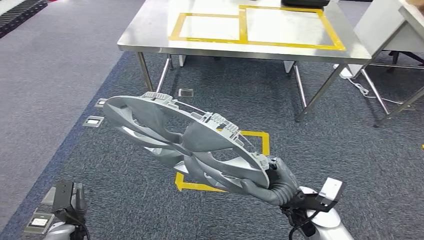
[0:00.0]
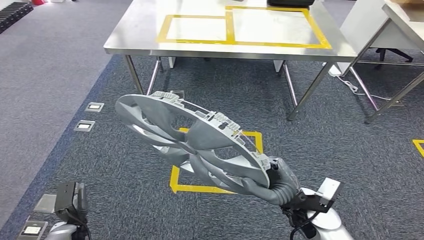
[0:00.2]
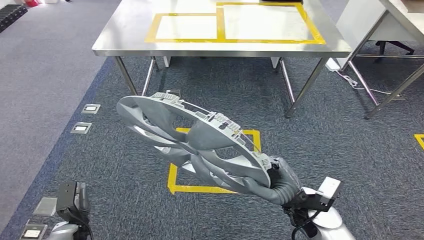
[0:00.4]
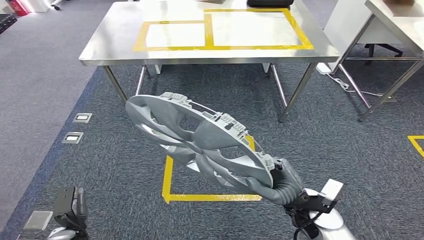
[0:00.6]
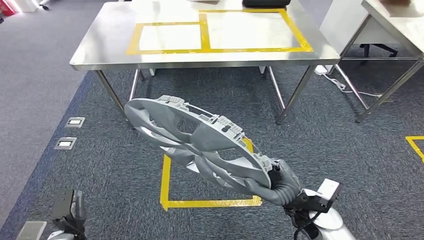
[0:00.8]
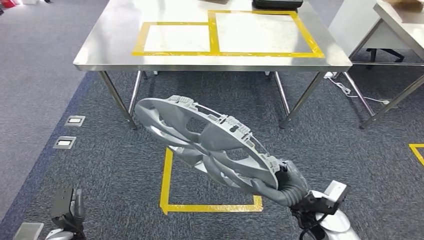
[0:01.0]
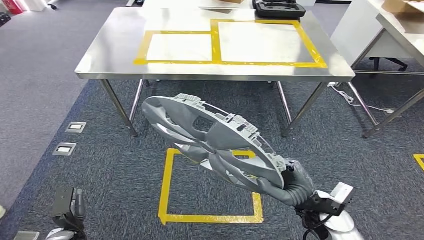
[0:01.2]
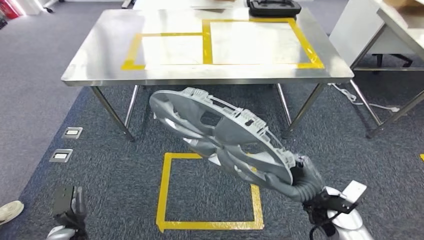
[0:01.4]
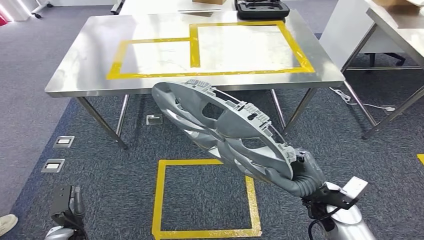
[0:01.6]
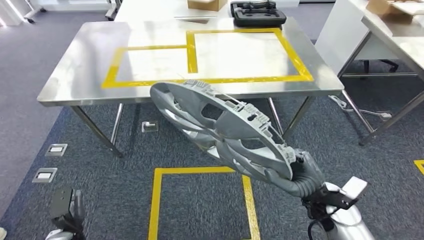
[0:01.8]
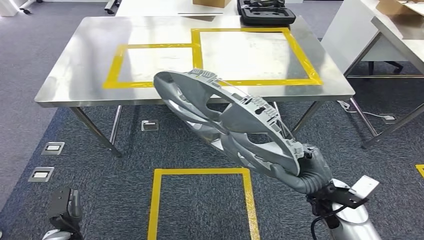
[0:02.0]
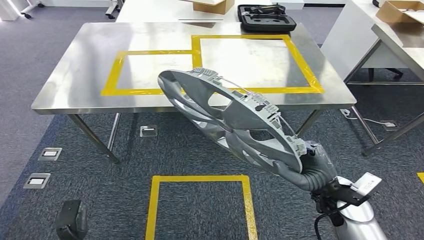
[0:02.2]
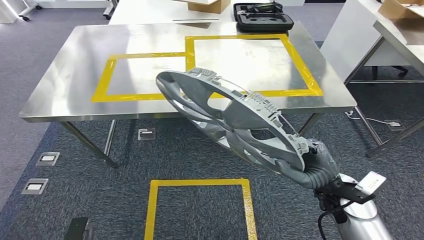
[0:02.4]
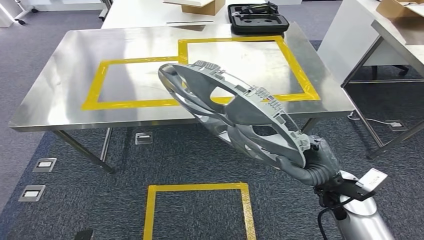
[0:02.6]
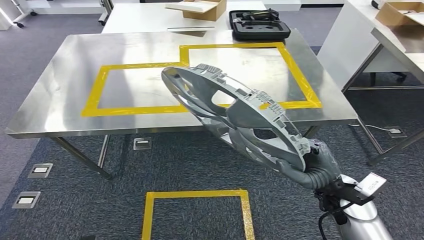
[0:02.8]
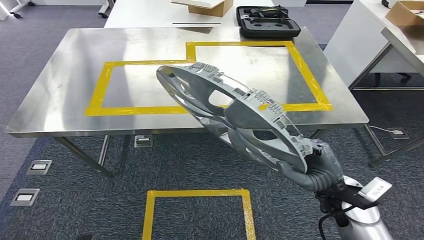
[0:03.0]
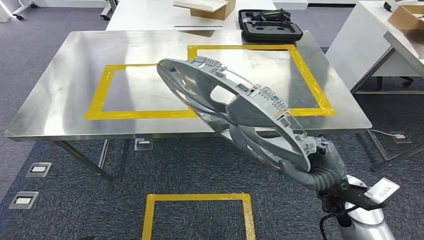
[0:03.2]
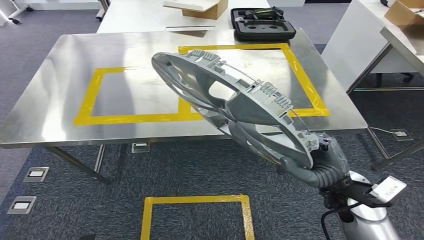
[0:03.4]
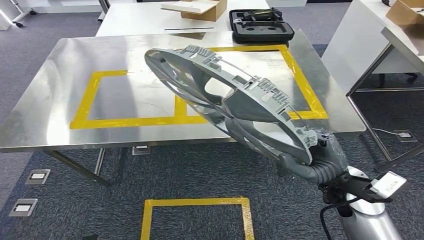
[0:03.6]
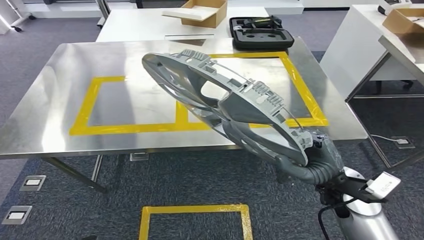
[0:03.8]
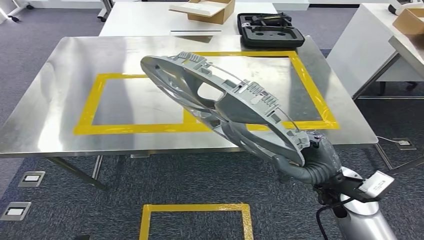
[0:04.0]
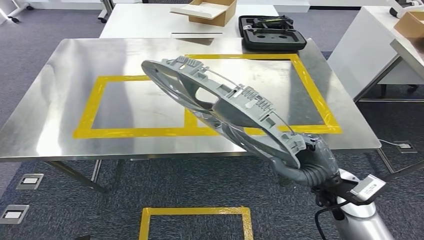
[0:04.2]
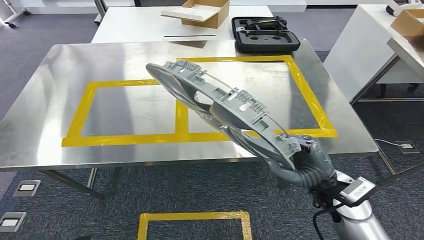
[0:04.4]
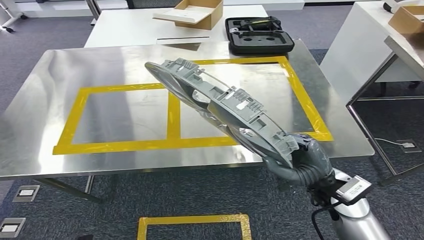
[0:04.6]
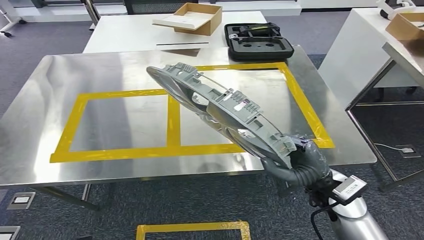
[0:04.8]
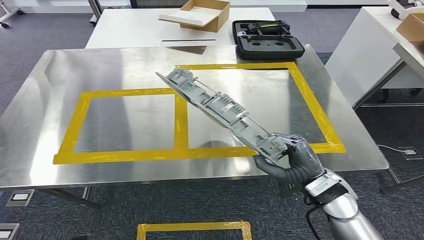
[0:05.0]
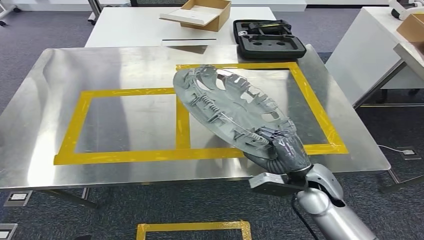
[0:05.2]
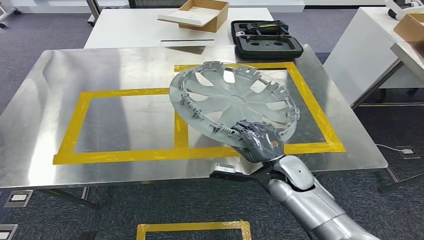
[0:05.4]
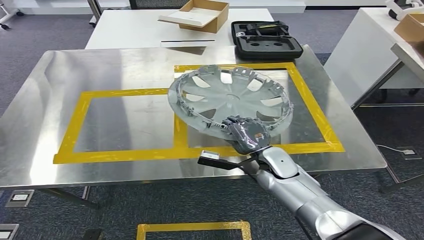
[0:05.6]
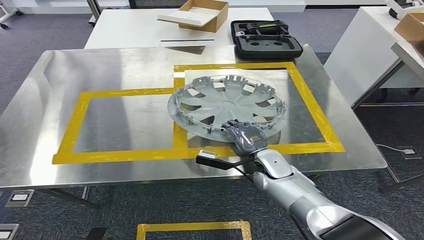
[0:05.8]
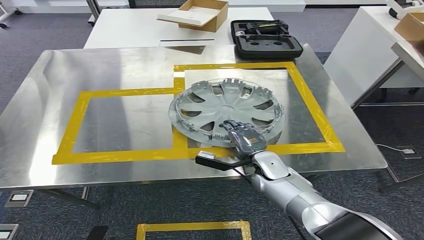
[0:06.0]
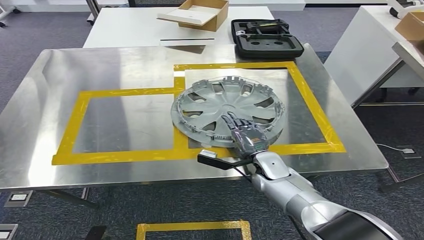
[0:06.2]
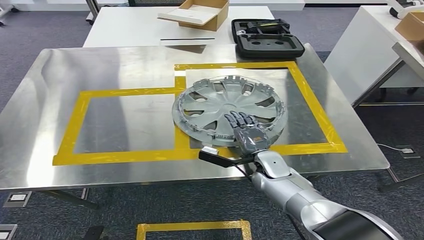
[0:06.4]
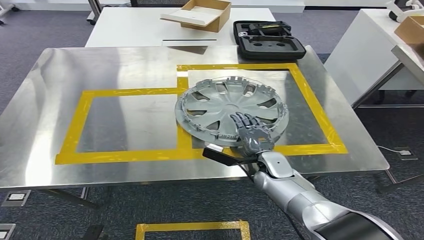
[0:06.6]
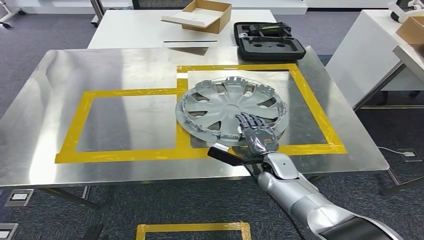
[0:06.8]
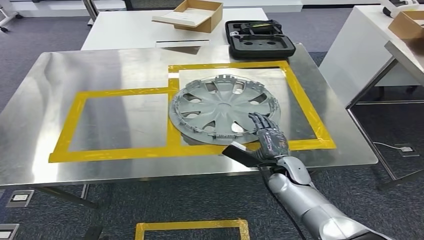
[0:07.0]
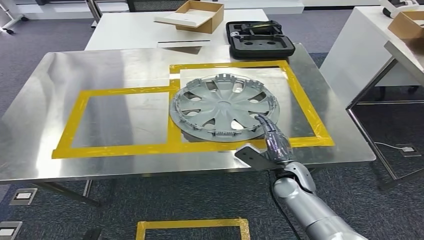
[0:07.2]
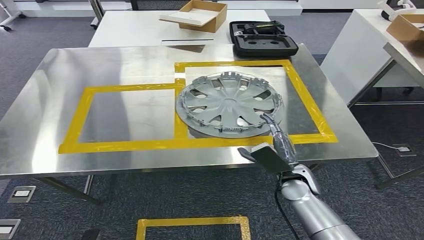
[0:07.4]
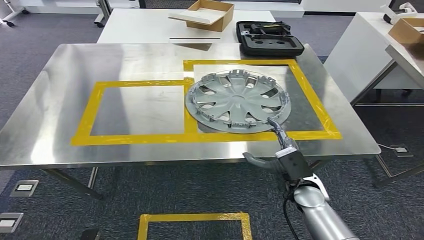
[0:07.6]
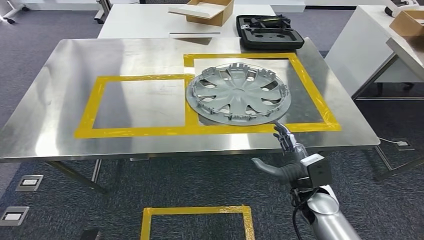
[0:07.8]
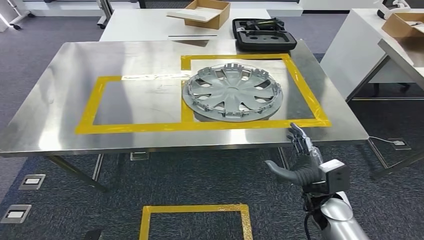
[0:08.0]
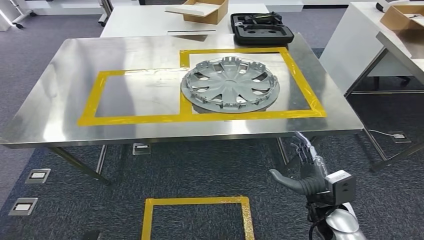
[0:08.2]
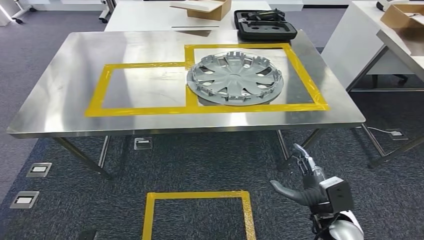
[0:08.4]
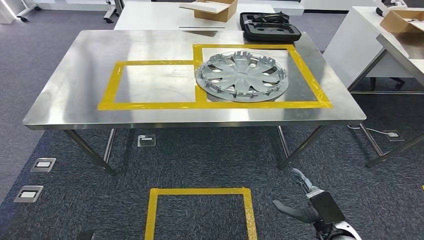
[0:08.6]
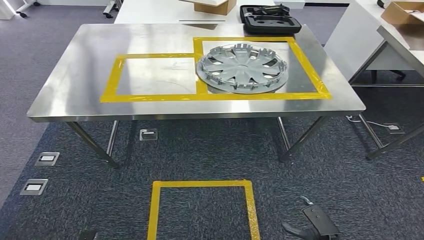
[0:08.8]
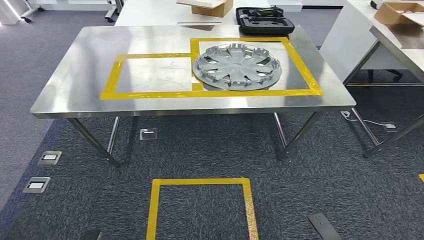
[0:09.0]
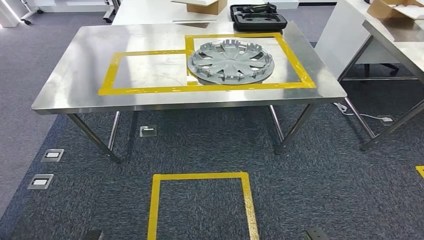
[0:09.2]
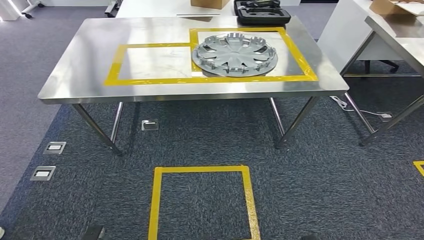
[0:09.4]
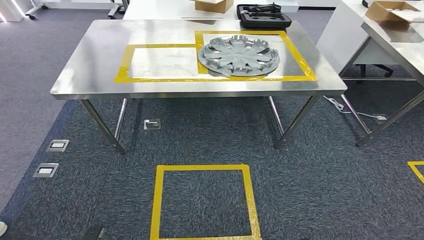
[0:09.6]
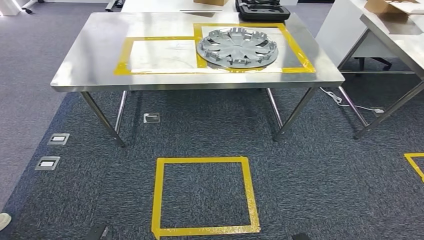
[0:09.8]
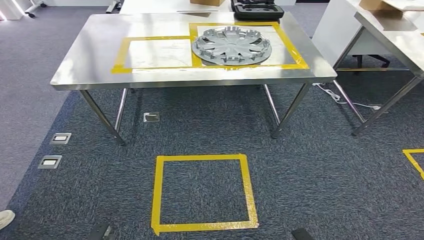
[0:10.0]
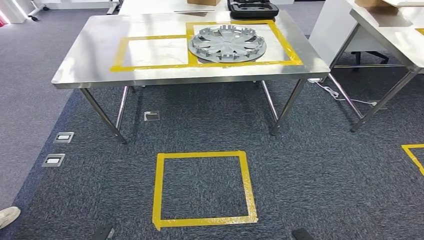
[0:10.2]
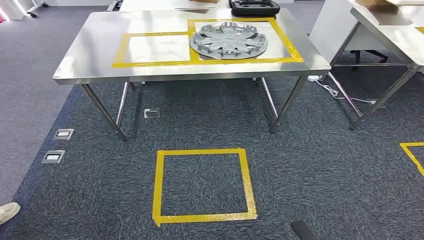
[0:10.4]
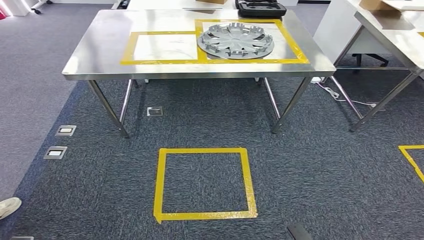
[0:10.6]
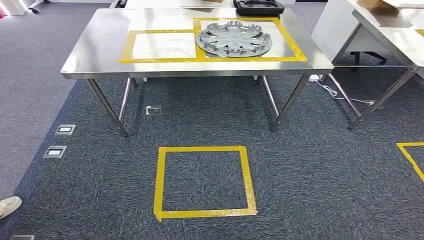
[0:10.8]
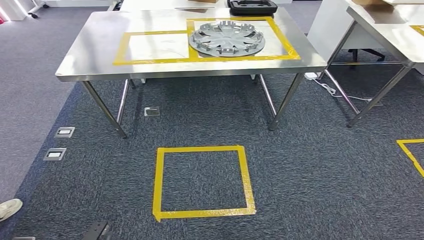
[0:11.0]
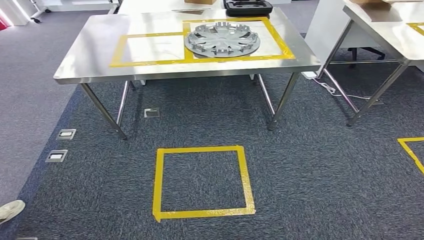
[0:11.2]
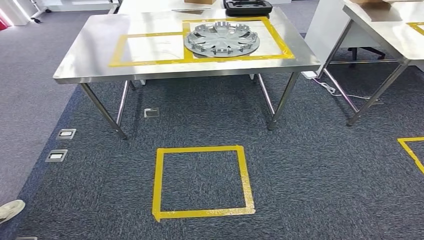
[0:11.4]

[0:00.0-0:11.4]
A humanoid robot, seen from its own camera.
Step, 0:00.0 to 0:03.0: Move the small parts to the workbench.
Step, 0:03.2 to 0:07.6: Insert the small parts into the corresponding slots on the workbench.
Step, 0:07.8 to 0:11.4: Return to the initial position at the workbench.

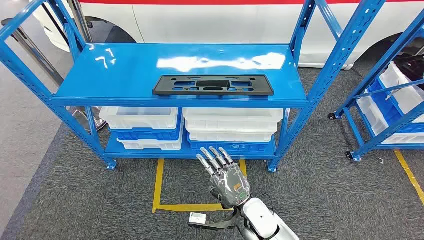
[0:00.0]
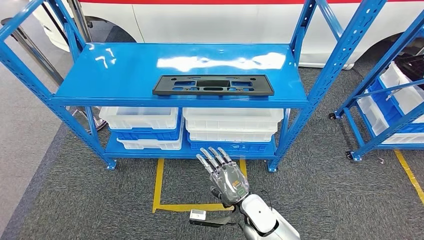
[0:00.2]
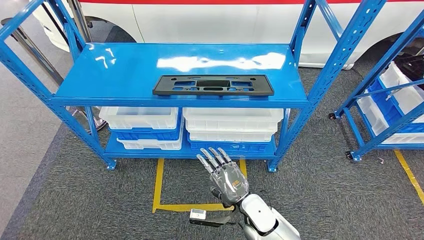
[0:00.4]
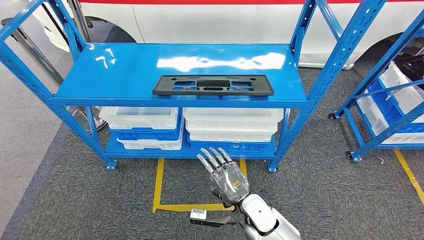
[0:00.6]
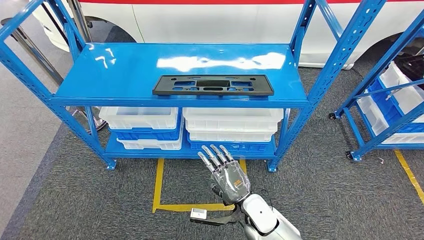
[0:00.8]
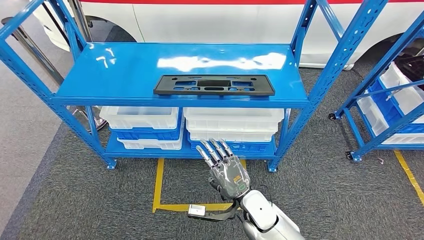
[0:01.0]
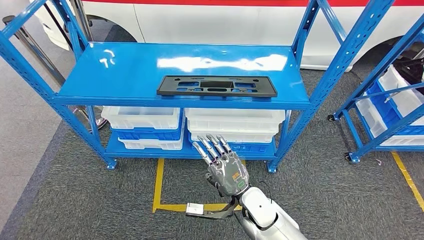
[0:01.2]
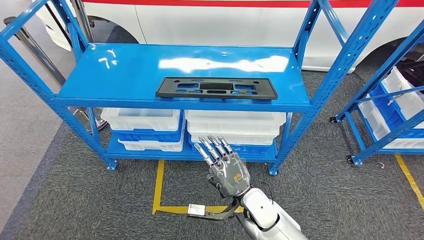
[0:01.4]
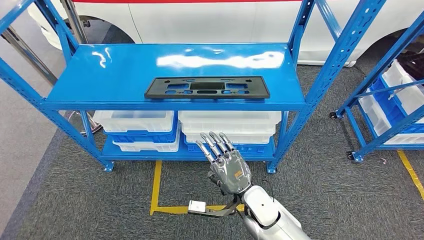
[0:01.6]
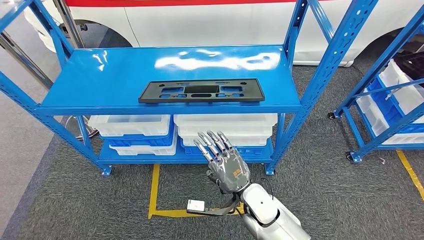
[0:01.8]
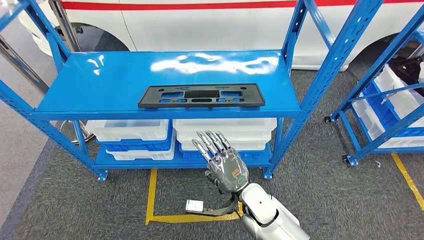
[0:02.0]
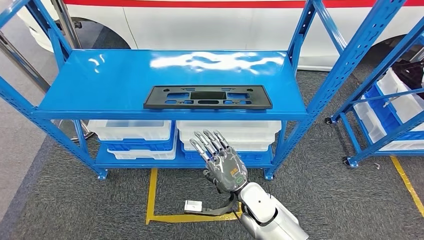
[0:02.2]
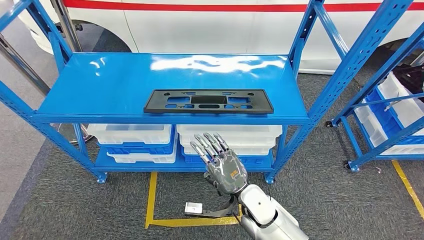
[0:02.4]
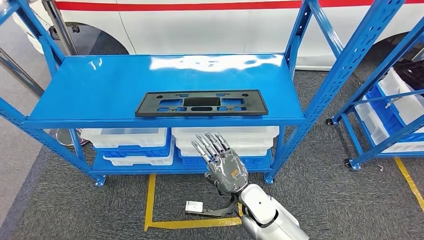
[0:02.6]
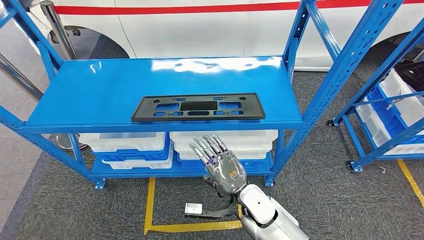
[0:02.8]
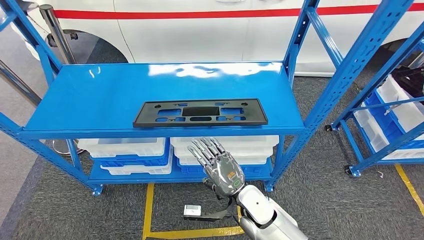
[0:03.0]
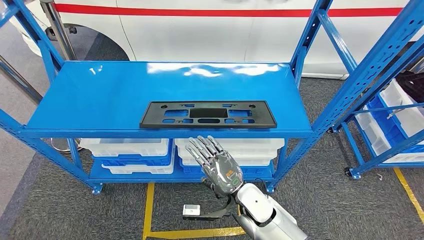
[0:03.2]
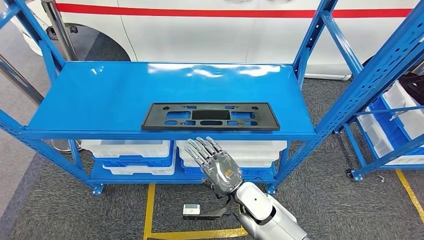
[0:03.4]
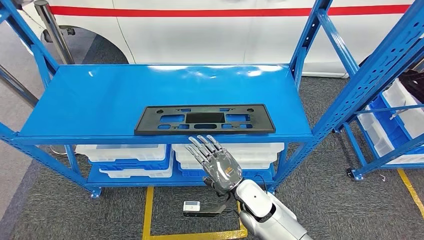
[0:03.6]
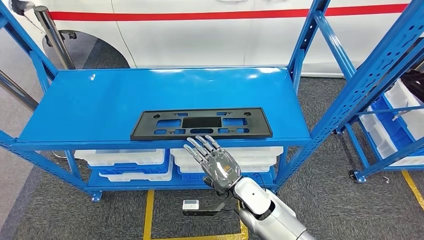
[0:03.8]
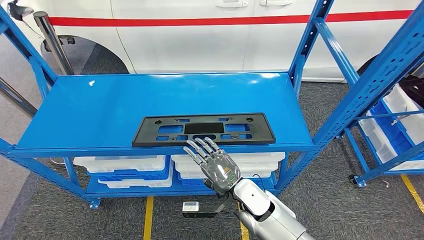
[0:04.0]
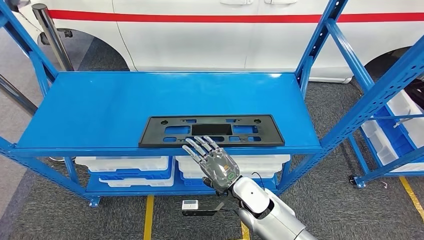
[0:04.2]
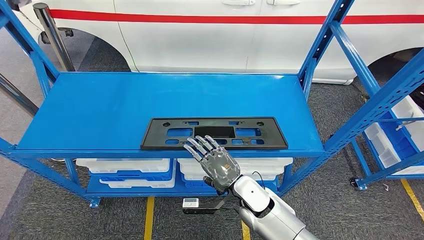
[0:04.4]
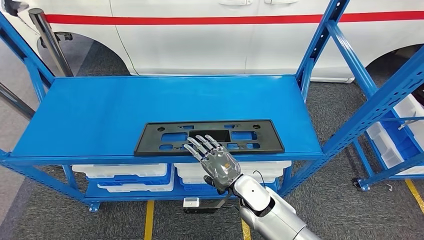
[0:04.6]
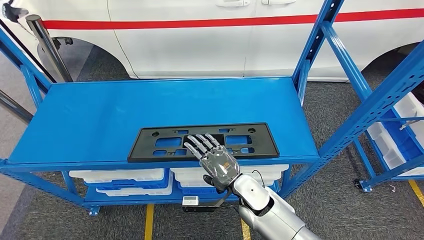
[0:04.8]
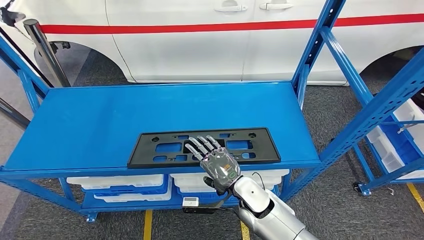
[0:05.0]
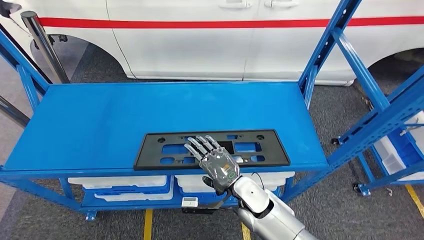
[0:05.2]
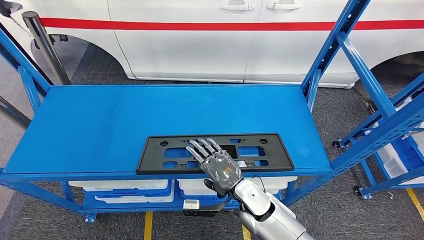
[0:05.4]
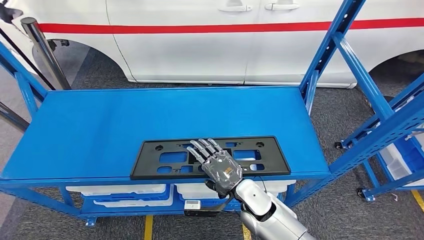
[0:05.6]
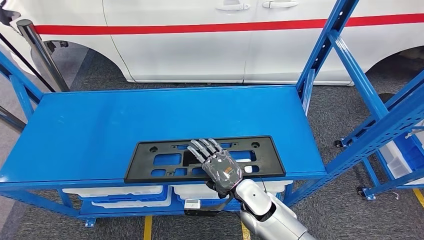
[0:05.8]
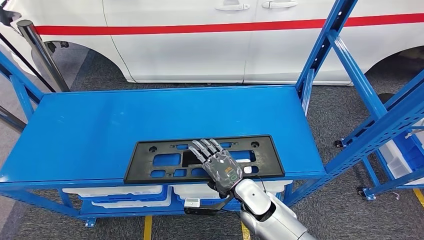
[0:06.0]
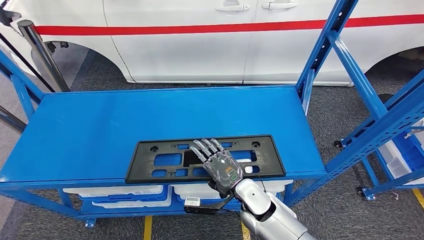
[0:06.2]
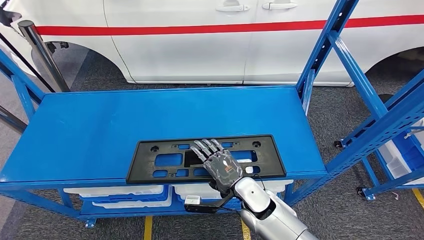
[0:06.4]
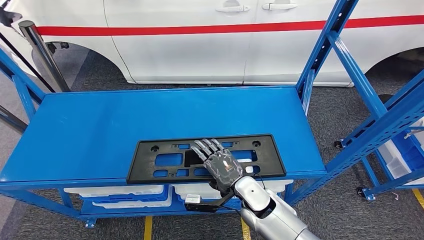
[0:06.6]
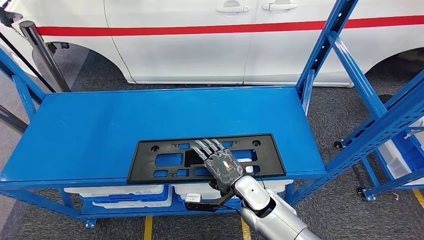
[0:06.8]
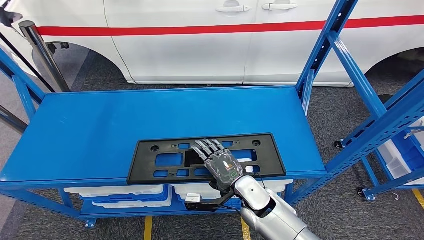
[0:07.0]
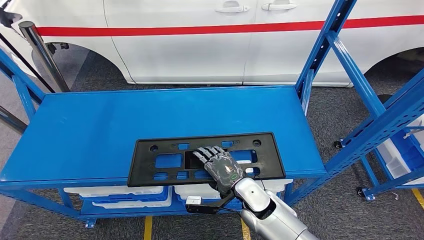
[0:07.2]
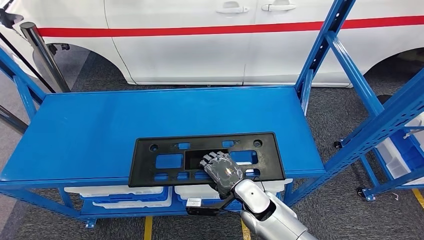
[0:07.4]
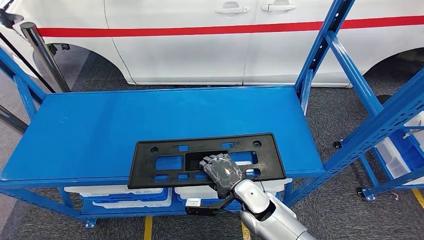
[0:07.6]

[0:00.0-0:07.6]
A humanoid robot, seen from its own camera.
0:06.0 to 0:07.6: The hands stay close to where they were, moving slightly.
